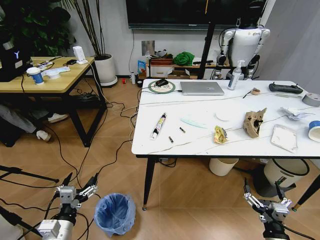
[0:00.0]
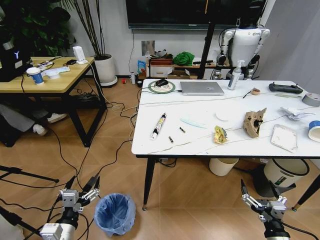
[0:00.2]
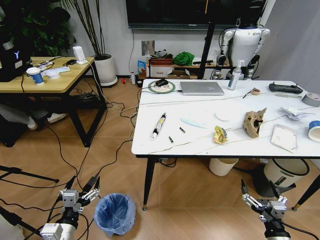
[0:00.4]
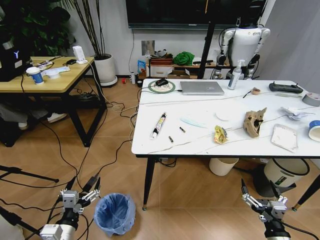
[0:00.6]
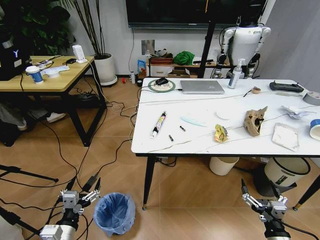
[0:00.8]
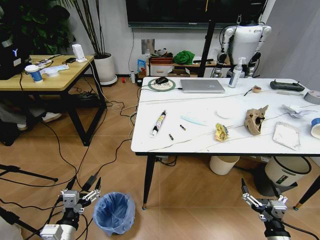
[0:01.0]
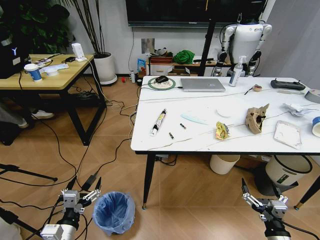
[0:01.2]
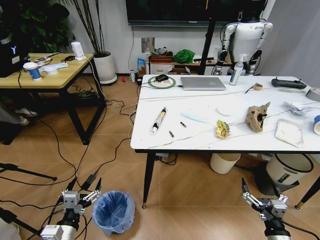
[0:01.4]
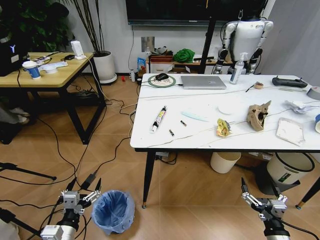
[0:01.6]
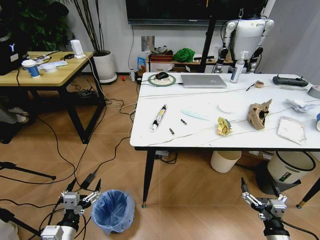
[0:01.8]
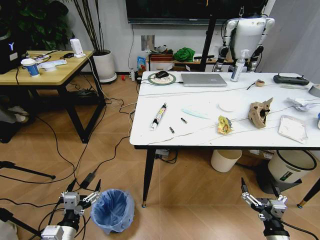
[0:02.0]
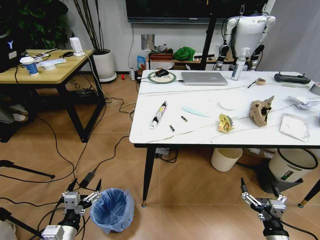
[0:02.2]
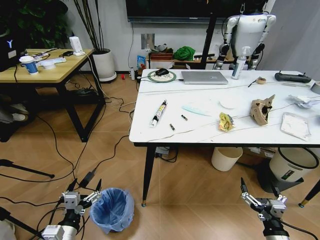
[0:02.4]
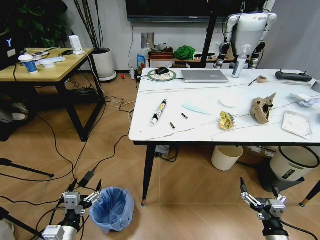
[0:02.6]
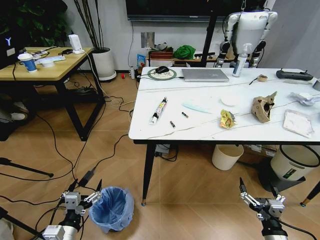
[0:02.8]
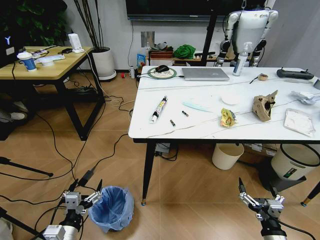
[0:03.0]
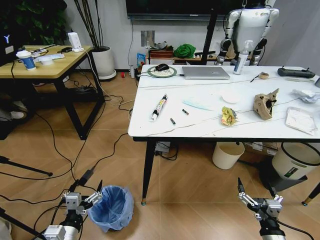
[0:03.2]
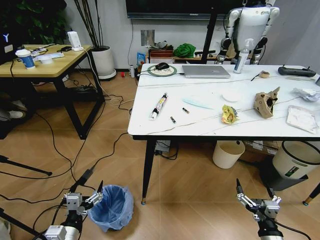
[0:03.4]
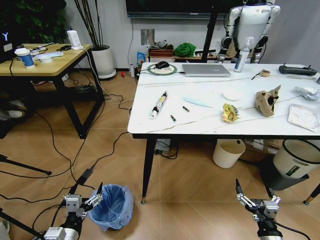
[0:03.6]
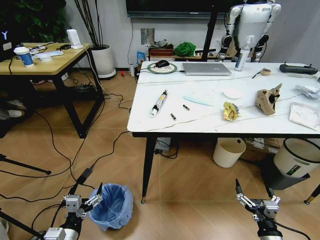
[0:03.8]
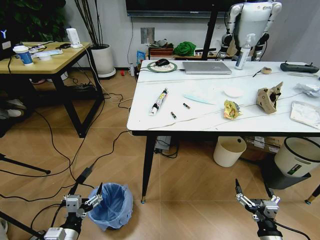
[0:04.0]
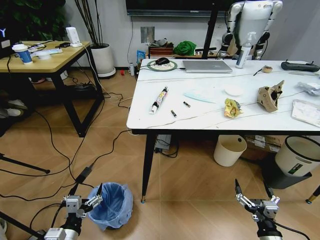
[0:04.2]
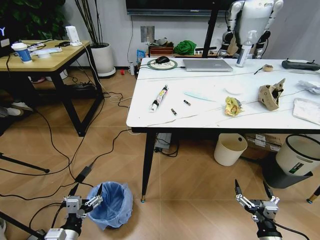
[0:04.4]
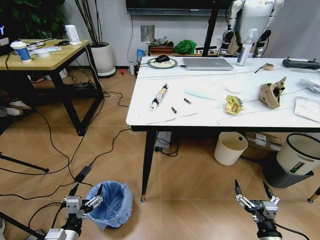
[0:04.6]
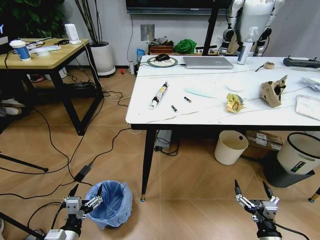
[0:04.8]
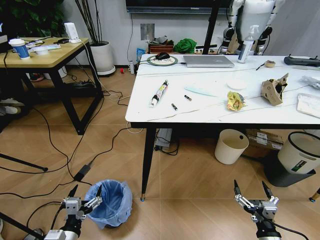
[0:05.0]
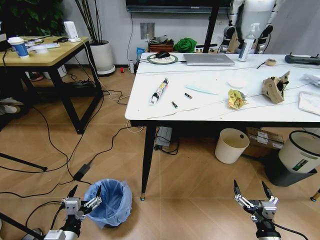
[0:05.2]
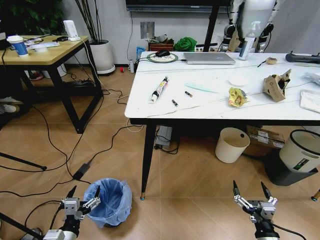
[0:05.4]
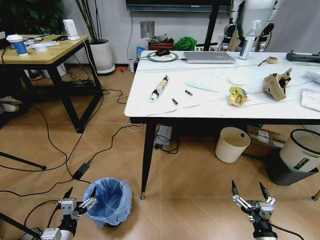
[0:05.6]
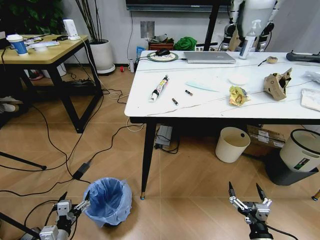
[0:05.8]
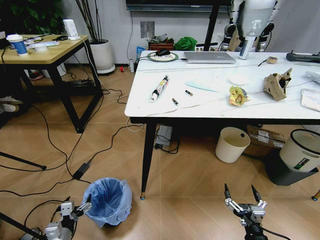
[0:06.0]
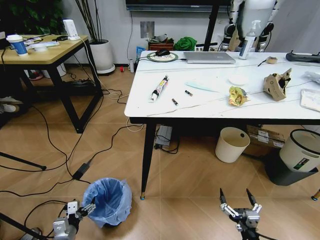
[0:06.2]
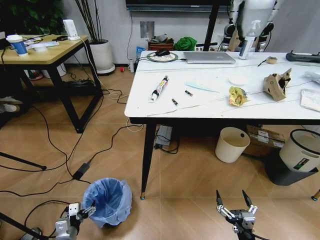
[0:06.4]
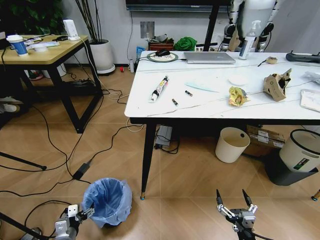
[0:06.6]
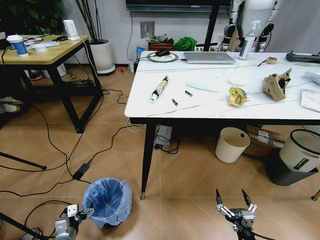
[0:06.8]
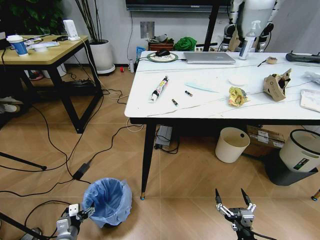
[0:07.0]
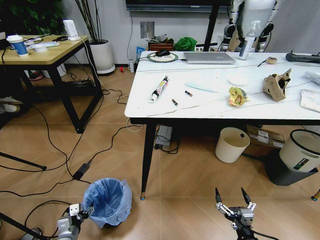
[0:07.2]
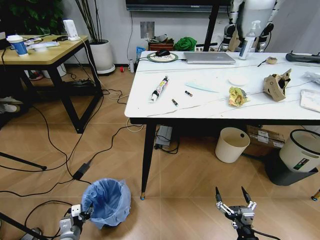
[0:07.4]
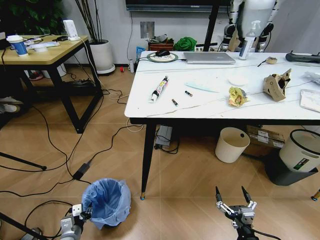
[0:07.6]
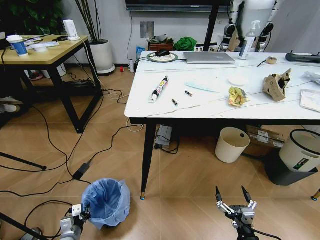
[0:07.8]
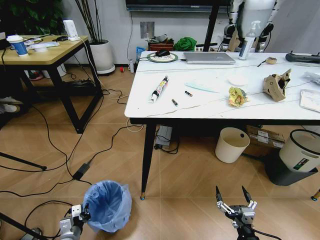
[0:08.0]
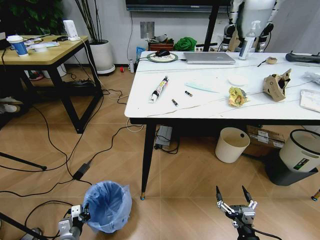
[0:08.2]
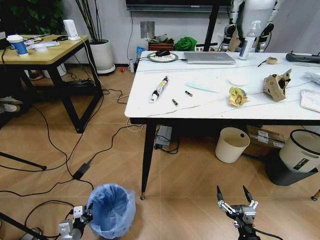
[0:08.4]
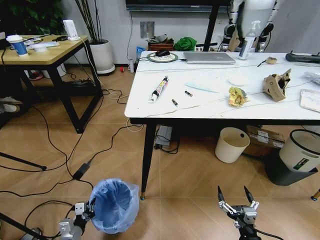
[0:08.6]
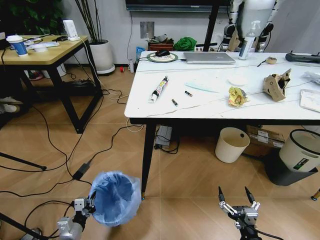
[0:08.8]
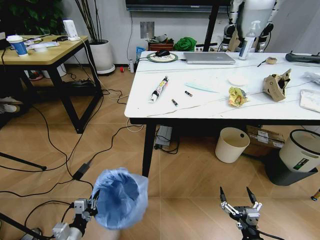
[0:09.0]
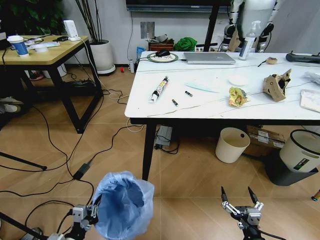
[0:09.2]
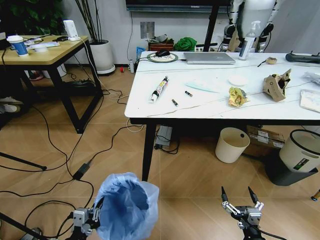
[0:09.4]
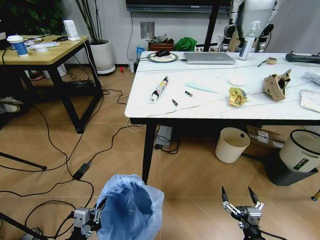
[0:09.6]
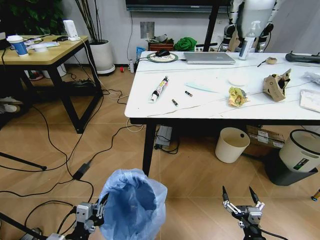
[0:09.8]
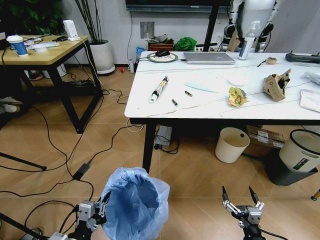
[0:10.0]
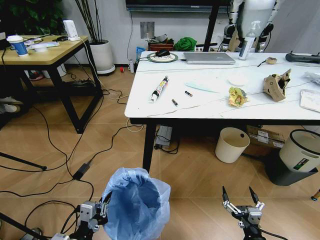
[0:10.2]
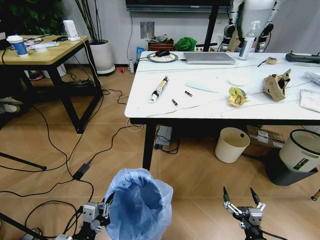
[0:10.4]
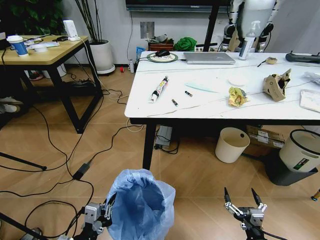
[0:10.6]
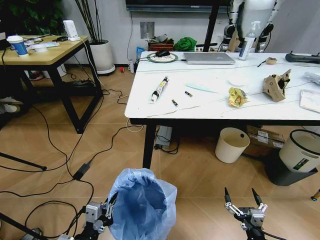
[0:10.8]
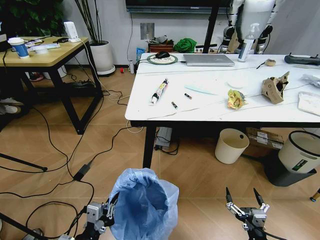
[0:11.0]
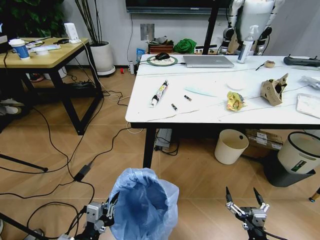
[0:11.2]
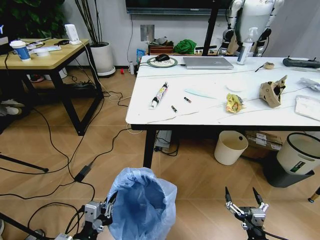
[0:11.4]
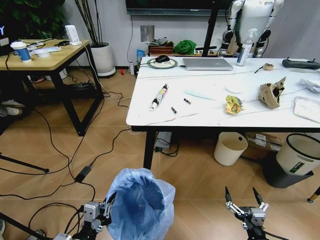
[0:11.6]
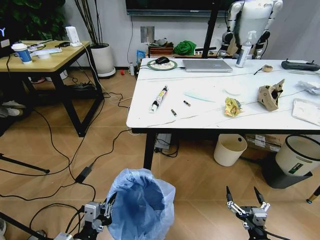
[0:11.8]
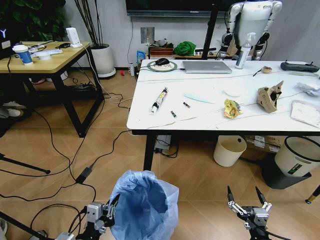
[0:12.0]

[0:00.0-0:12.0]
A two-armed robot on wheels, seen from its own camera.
Task of the whole recording: Pick up the trash bin and place the trash from the table into it.
0:04.4 to 0:06.0: The left gripper goes approximately 10 cm downward and to the left.
0:06.0 to 0:07.6: The left gripper travels downward by about 5 cm, and closes up.
0:07.6 to 0:09.0: The left gripper moves upward and backward, roughly 10 cm, and closes up.
0:09.0 to 0:10.4: The left gripper moves upward and to the right, roughly 15 cm.

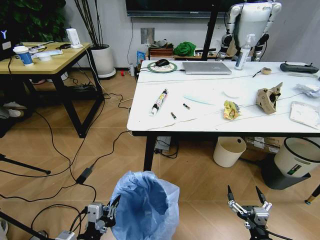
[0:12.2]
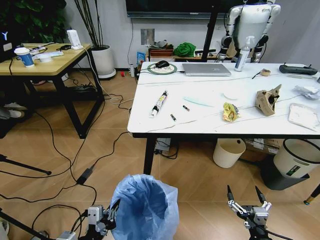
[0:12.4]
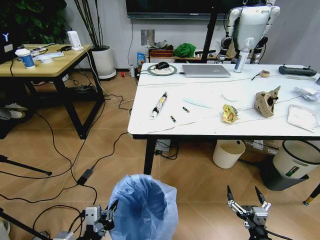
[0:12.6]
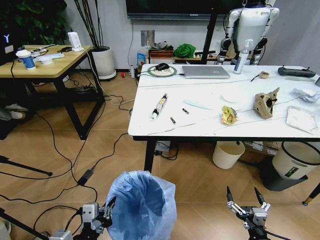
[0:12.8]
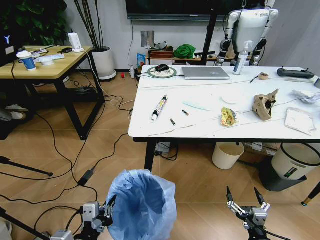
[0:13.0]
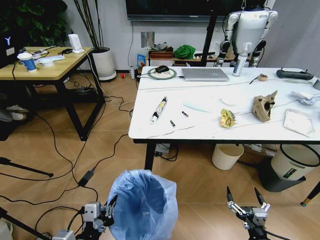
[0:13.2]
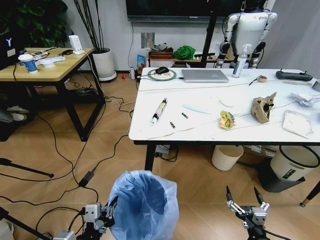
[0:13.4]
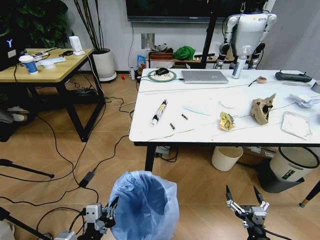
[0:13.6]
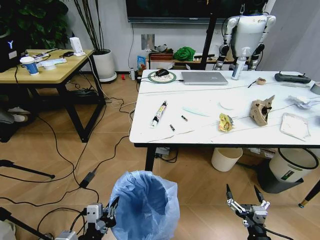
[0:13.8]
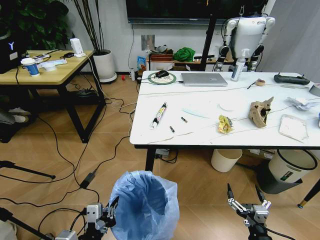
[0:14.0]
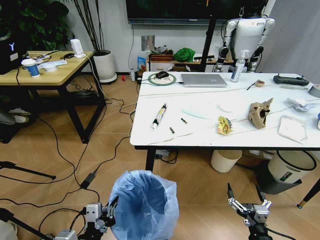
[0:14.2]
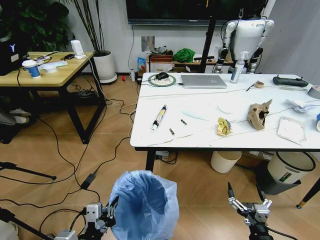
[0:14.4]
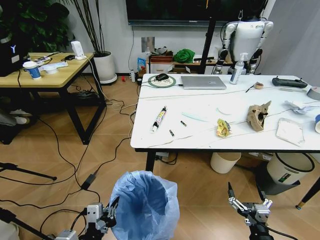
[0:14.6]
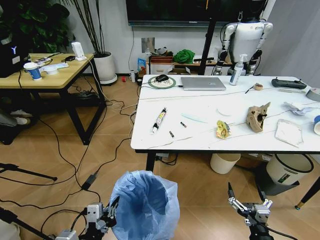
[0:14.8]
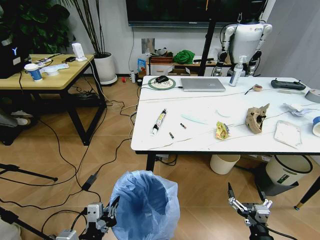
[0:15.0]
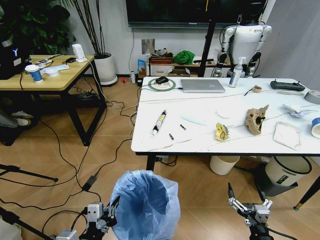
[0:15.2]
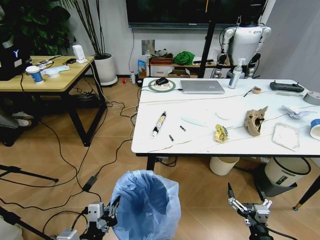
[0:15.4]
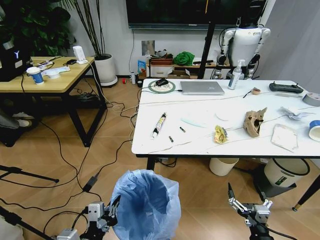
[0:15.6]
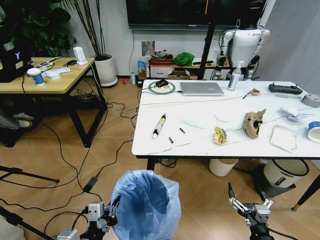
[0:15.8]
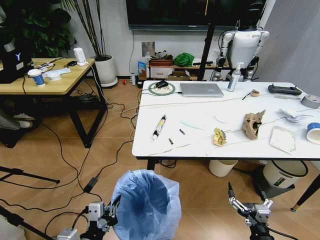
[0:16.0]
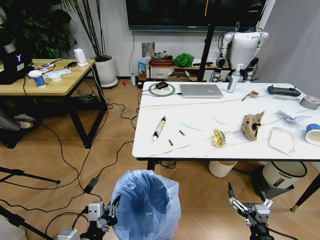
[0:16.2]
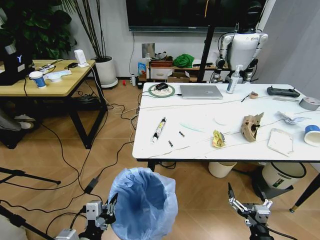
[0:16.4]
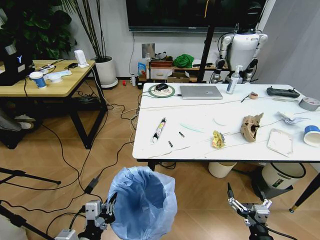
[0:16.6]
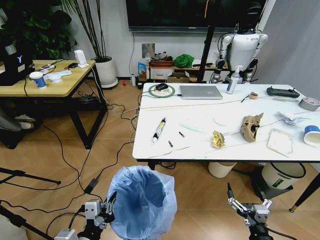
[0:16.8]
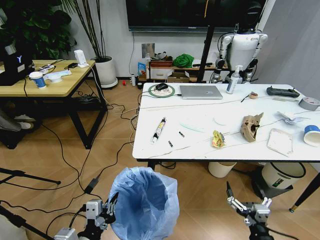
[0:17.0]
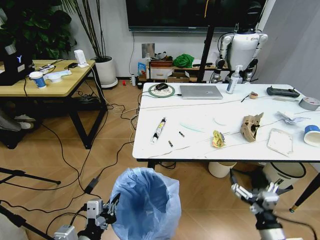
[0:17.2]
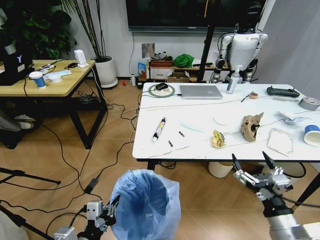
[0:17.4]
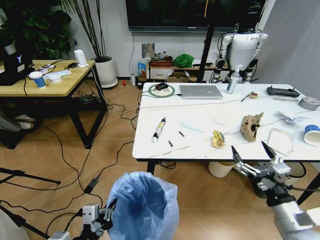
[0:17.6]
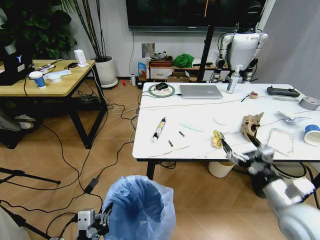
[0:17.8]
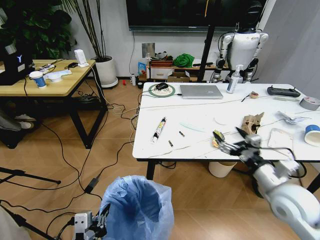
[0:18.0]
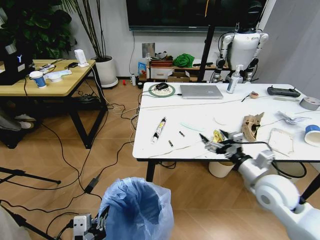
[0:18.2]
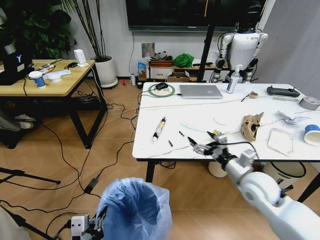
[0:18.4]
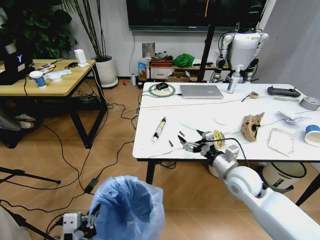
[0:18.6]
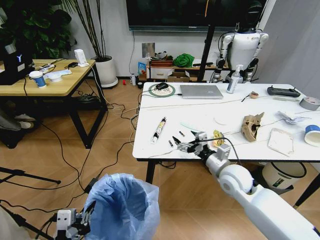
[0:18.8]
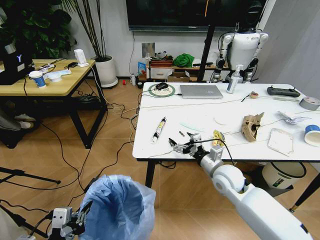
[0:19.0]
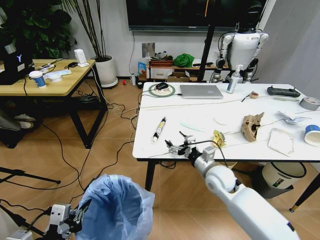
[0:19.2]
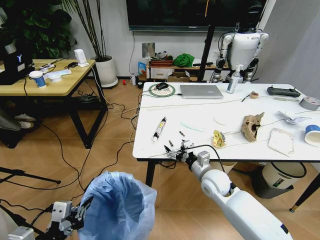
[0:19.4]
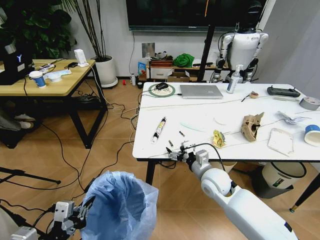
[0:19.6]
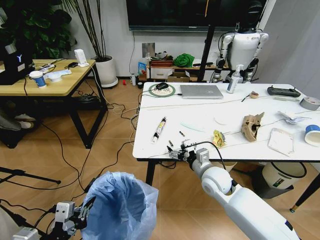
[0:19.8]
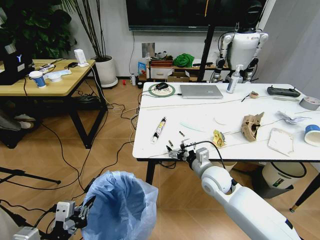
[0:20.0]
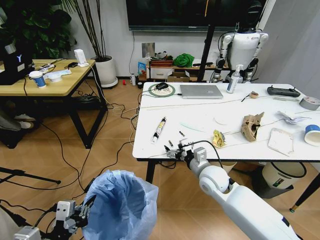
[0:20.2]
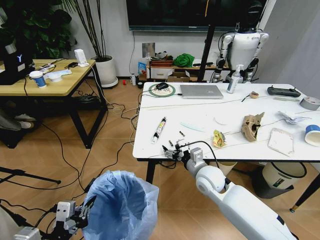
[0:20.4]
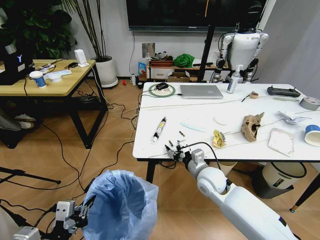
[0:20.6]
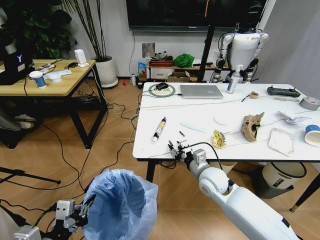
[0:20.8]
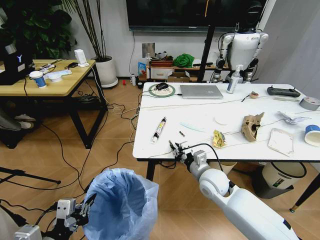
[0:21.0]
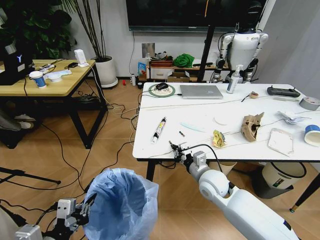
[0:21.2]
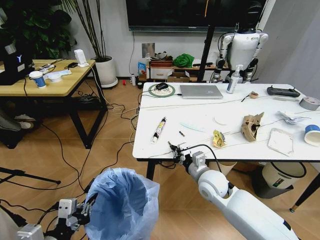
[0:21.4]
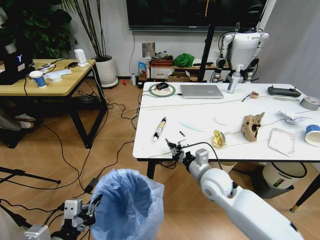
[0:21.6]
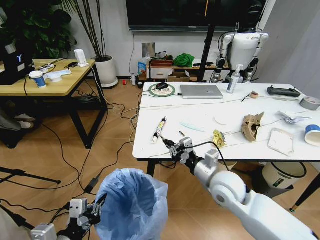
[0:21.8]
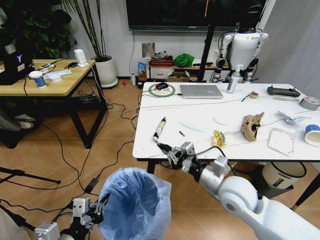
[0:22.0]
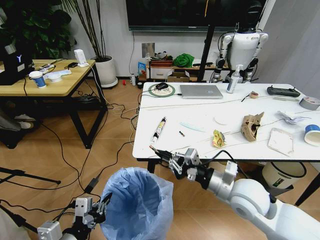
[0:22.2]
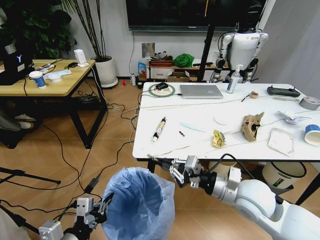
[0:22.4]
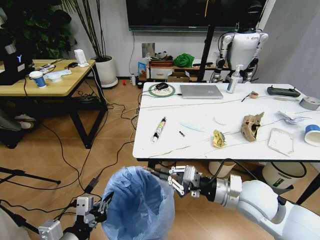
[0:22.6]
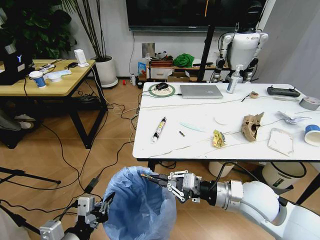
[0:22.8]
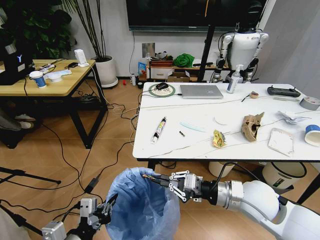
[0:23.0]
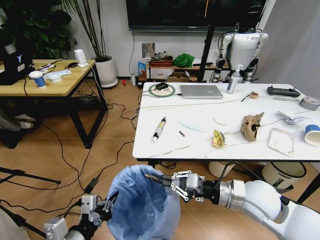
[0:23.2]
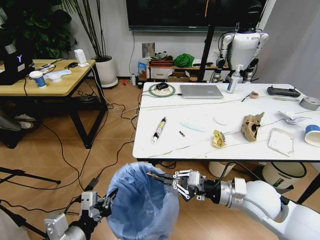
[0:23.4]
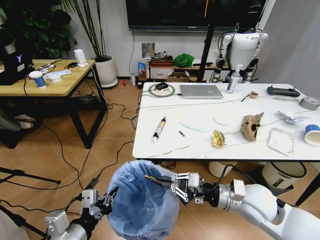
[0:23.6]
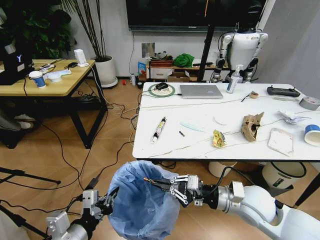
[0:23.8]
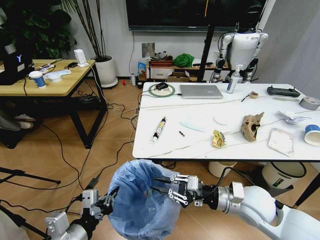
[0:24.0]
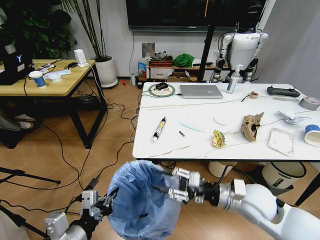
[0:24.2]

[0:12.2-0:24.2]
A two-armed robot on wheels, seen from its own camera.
Task of the whole recording: Pick up the trash bin and place the trash from the table into it.
0:16.6 to 0:18.2: The right gripper travels forward and upward by some 25 cm.
0:18.2 to 0:19.8: The right gripper shifts approximately 15 cm to the left, downward and forward, while the left gripper goes some 5 cm to the left.
0:19.8 to 0:21.2: The right gripper closes up.
0:21.2 to 0:22.6: The right gripper moves upward, backward and to the right, roughly 15 cm.
0:22.6 to 0:24.2: The right gripper opens its fingers.
